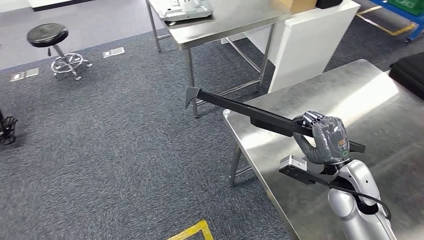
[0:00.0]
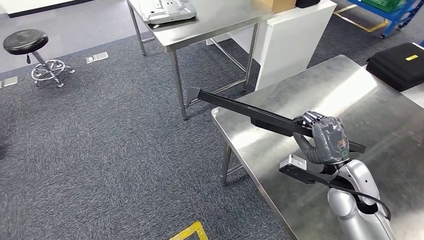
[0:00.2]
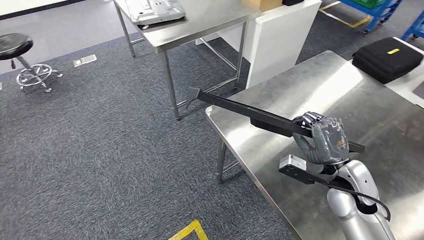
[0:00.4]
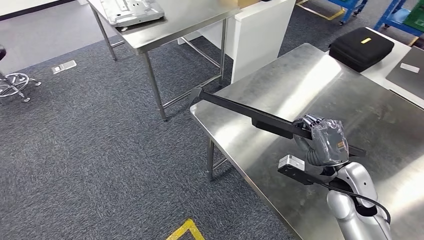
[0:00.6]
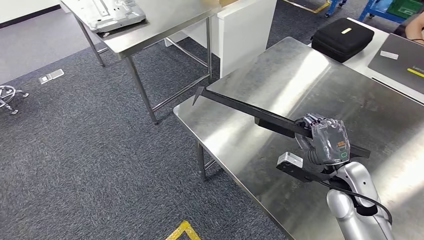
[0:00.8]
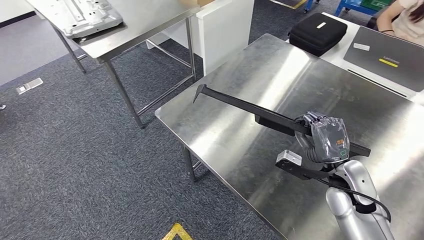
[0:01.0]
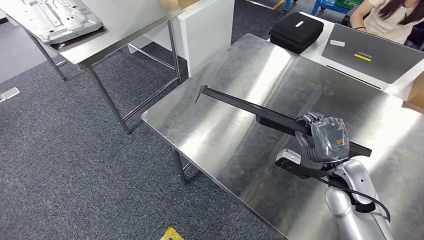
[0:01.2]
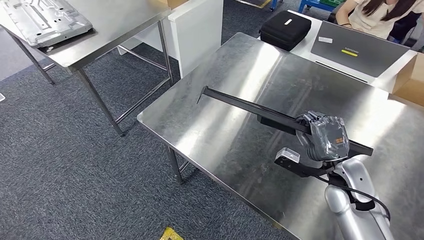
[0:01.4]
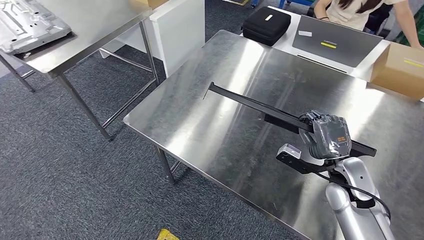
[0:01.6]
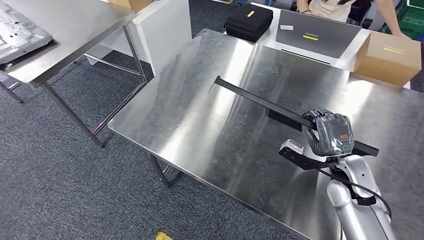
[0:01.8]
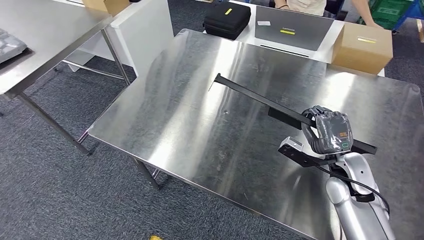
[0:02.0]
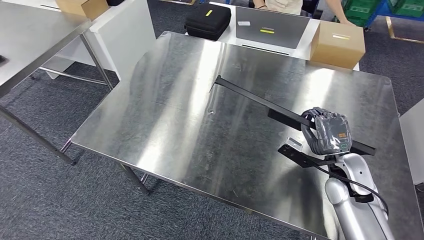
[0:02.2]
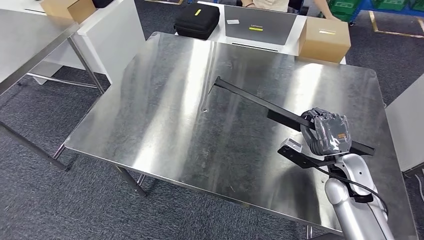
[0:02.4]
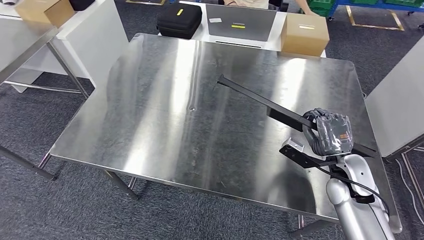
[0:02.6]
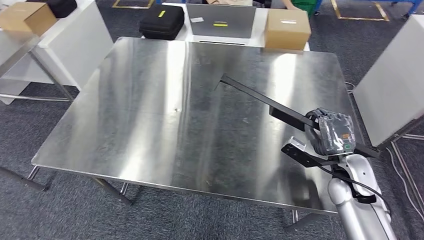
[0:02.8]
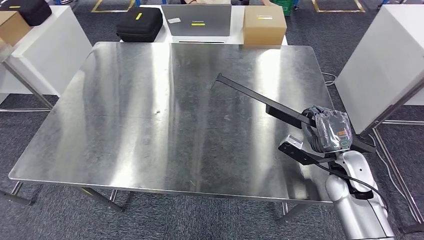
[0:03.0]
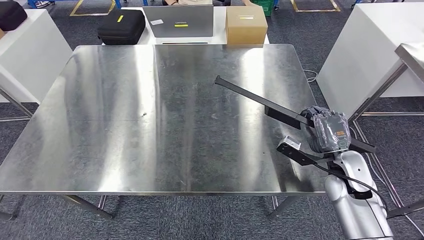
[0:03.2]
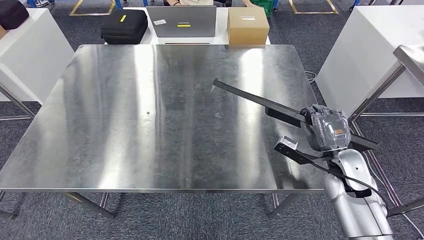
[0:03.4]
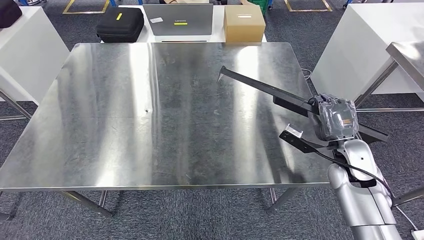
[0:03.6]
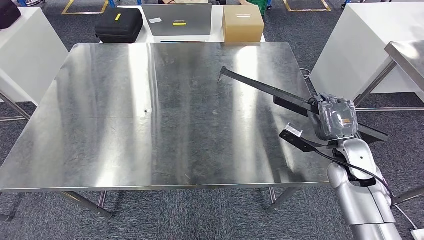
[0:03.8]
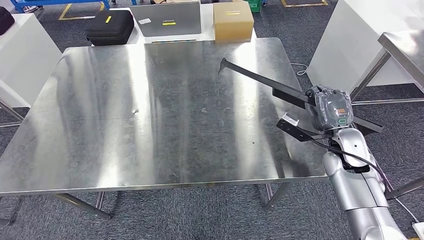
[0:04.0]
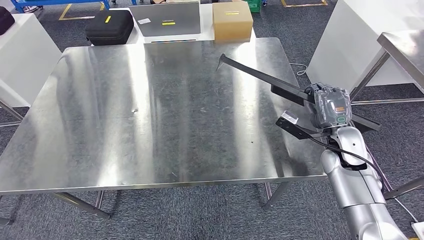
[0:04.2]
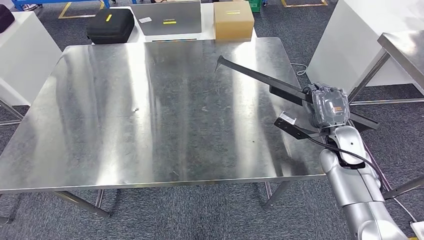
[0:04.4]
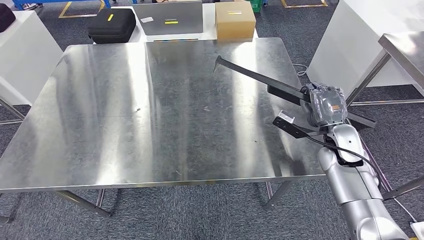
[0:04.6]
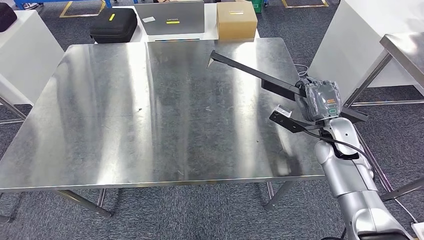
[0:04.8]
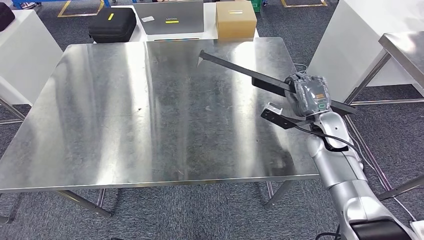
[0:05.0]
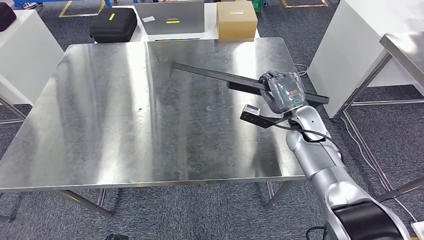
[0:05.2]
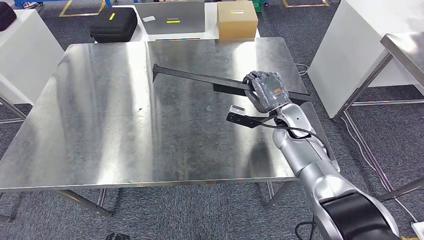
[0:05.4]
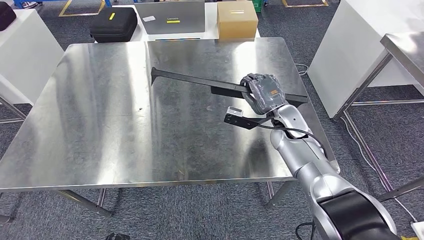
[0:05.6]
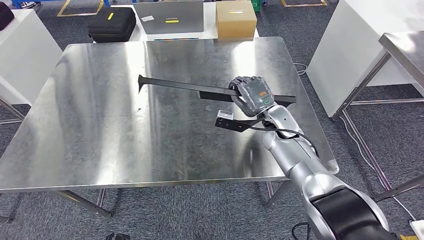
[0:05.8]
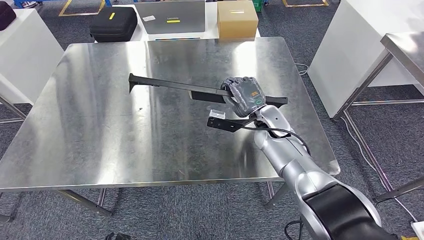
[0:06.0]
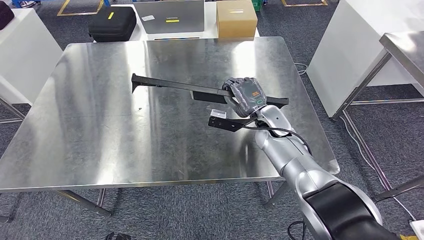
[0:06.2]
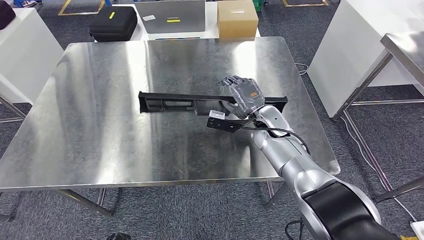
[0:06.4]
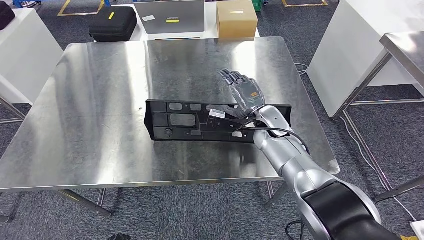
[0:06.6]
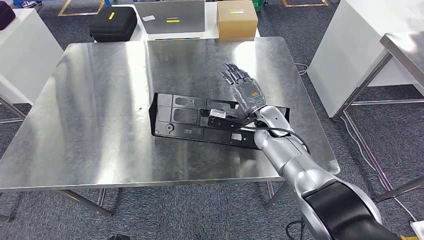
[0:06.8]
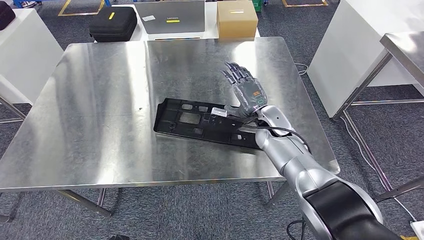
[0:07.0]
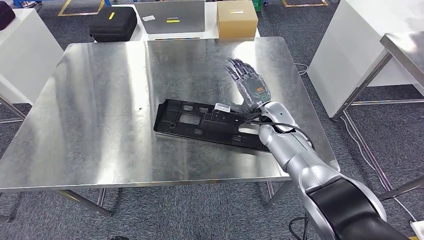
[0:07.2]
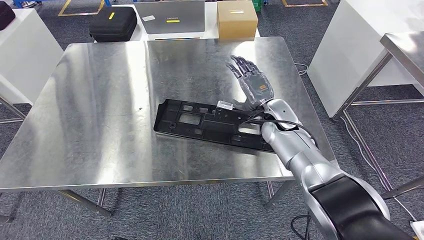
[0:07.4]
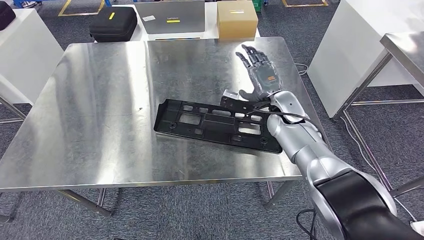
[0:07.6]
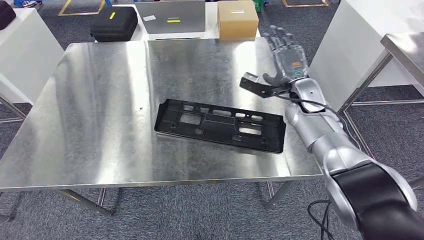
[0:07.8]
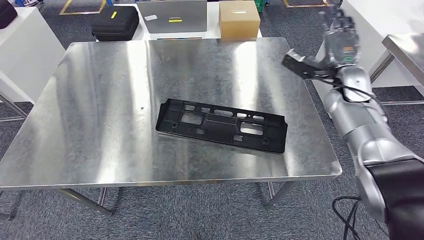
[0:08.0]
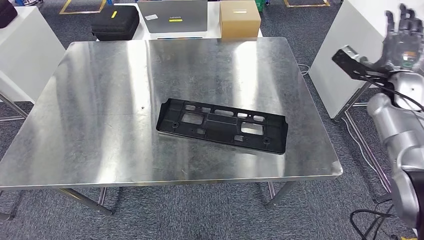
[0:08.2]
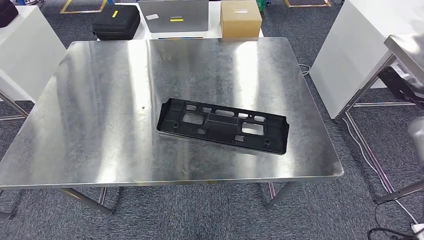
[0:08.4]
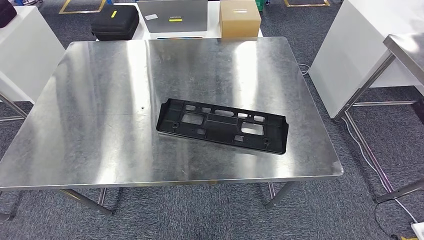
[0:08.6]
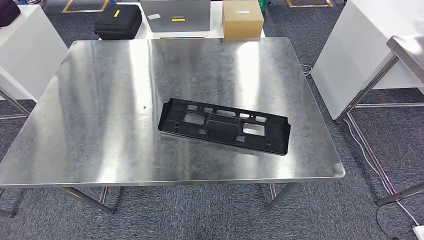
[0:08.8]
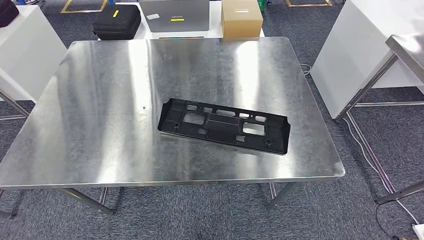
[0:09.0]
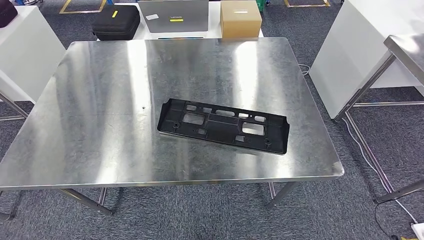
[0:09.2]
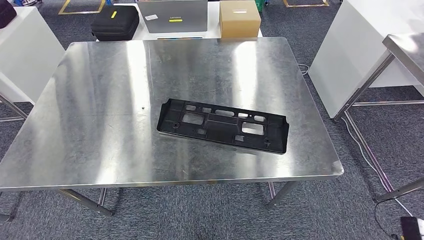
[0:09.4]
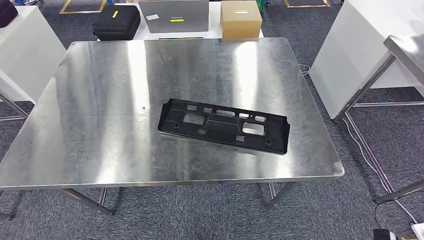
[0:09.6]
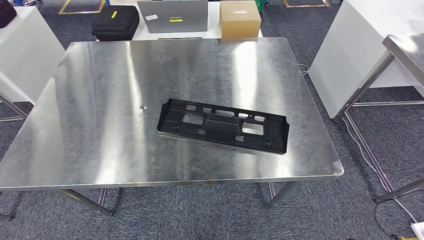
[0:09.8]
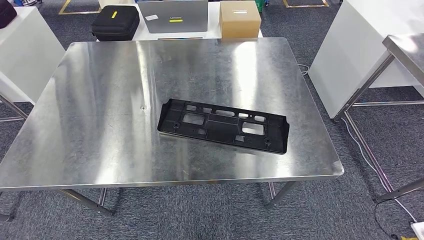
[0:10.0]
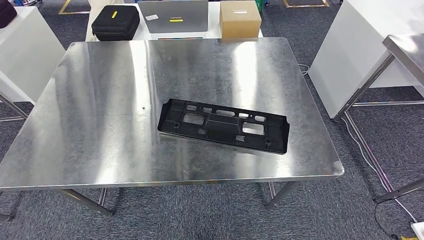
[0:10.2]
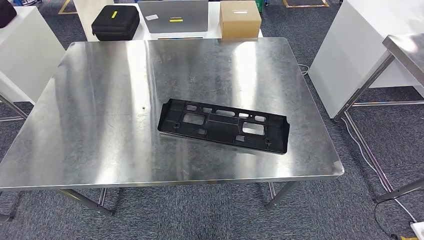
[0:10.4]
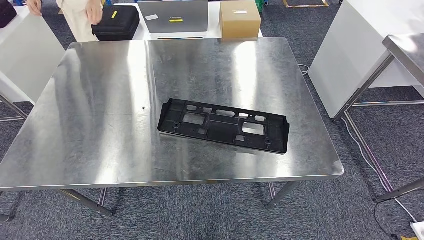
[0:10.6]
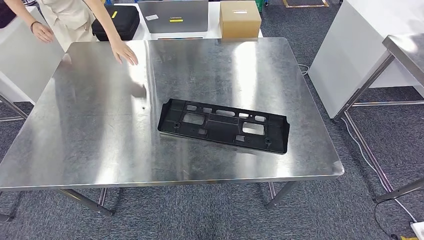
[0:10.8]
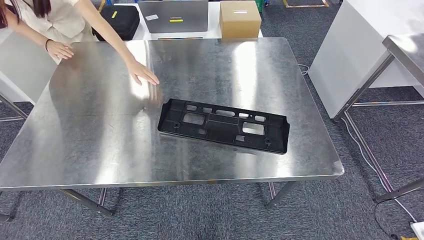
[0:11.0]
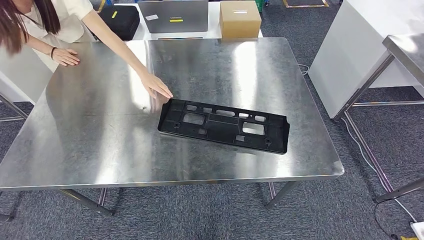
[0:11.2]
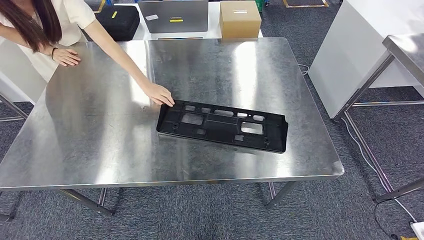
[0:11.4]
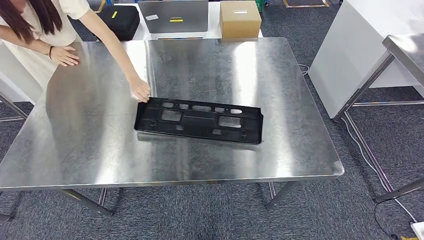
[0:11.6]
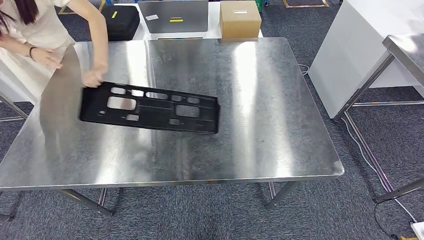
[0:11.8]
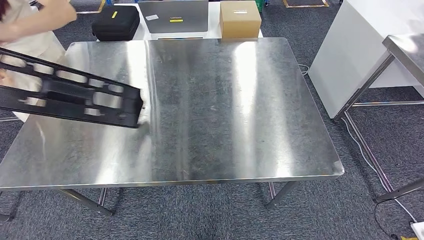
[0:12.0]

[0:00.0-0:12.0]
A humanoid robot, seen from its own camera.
Step, 0:00.0 to 0:08.8: Insert the large material into the corresponding slot on the workbench.
0:06.0 to 0:07.6: The right hand moves about 5 cm.
0:09.0 to 0:10.4: The right hand shifts about 50 cm to the left and downward.
0:10.4 to 0:12.0: The hands move only a little.

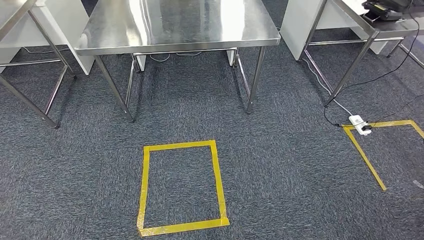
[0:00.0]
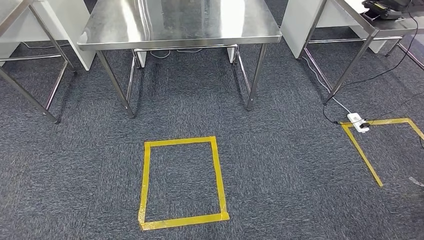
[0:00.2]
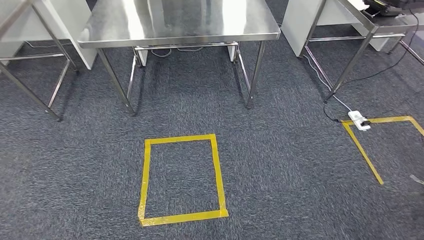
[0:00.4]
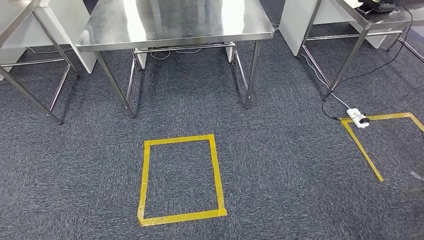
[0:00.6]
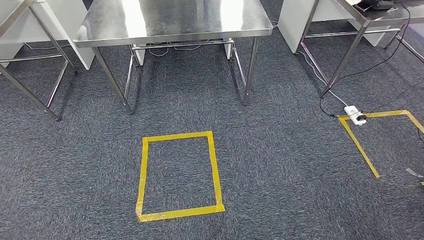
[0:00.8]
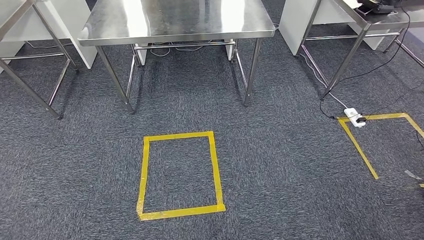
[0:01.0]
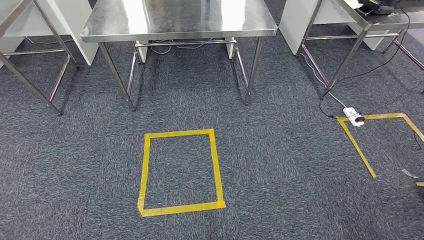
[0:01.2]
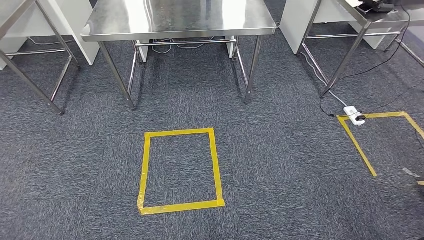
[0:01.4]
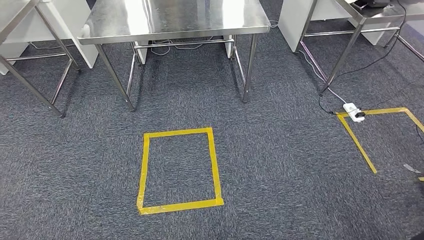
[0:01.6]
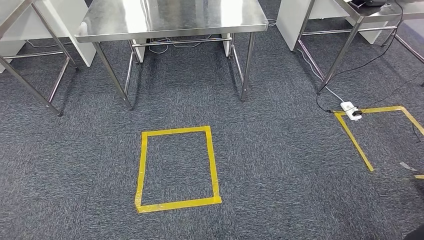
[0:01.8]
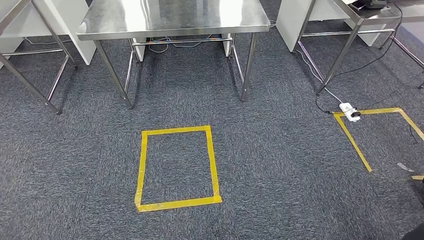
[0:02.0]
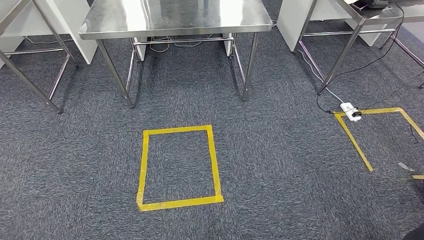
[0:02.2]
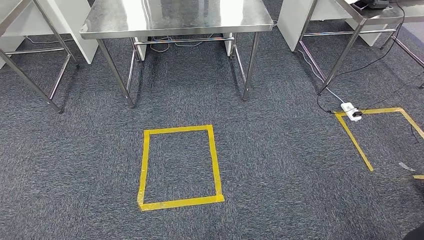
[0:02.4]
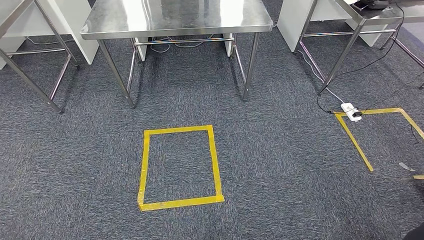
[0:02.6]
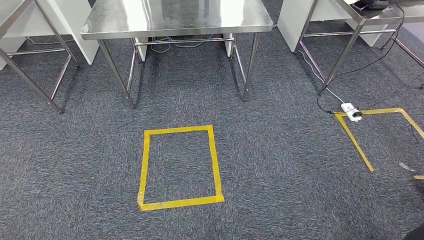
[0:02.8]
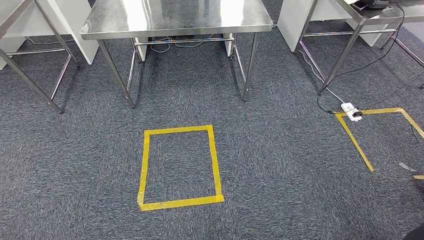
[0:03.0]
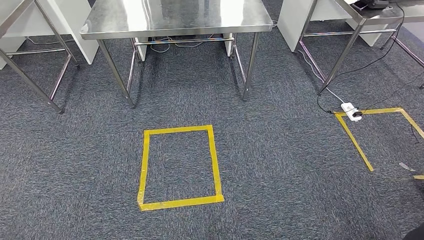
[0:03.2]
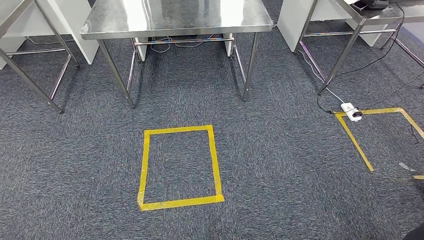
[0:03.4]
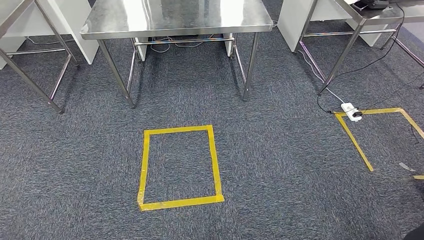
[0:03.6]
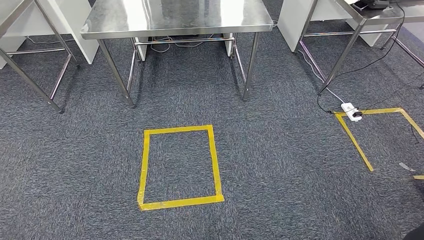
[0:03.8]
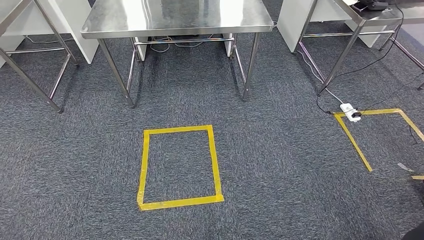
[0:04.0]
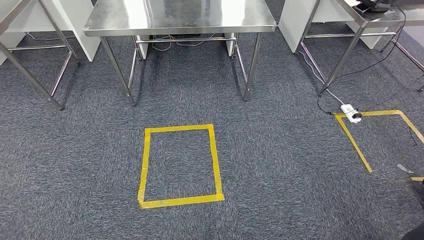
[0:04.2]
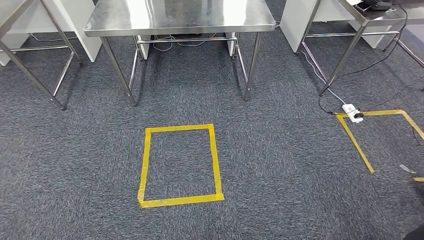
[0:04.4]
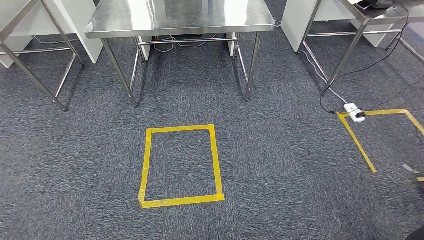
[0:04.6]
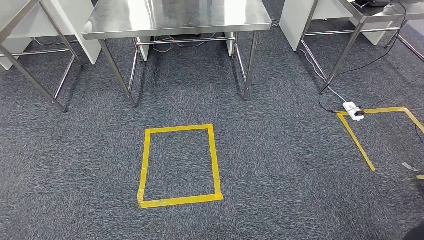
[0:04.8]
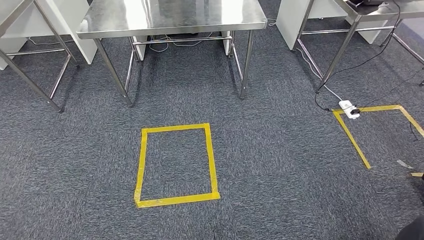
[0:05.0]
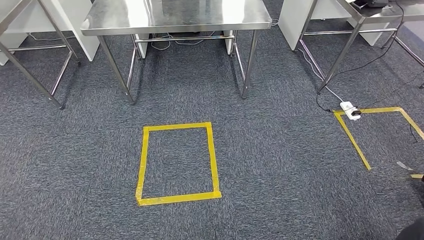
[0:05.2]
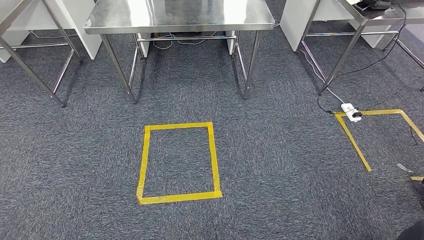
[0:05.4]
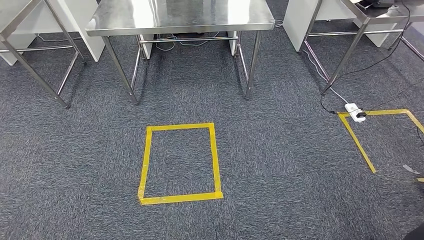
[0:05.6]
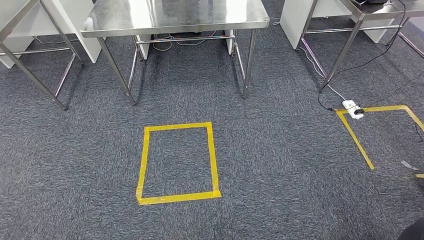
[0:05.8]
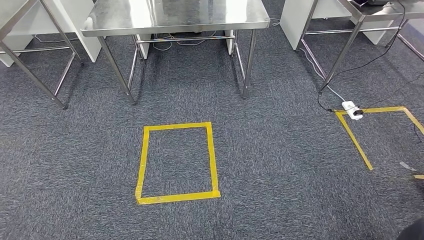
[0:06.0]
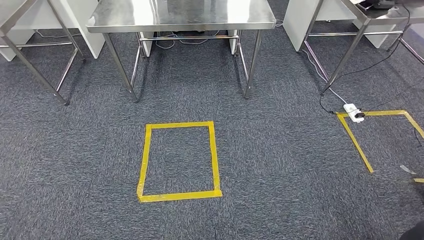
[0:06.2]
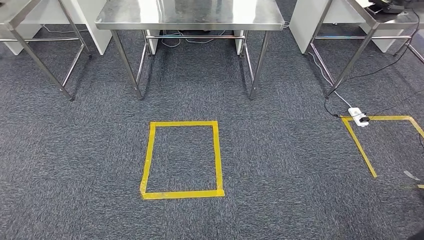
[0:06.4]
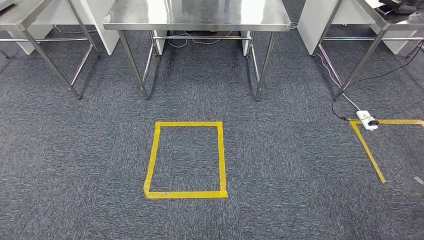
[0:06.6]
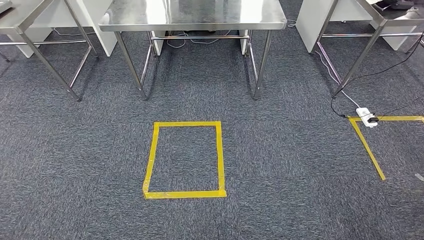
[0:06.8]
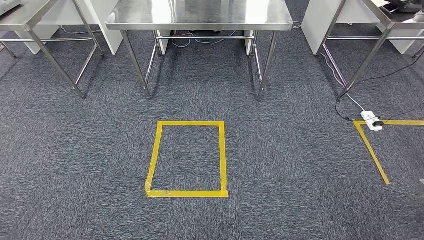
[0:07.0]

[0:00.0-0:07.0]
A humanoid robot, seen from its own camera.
0:00.0 to 0:02.8: The two hands keep their place.
0:02.8 to 0:04.2: The hands stay close to where they were, moving slightly.
0:04.2 to 0:05.6: The two hands keep their place.
